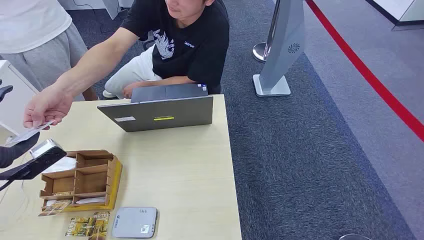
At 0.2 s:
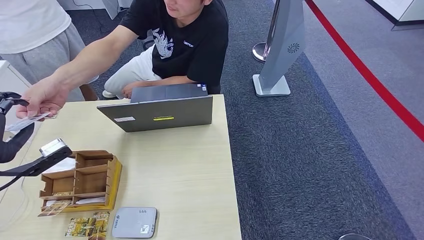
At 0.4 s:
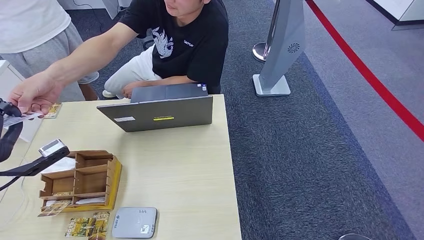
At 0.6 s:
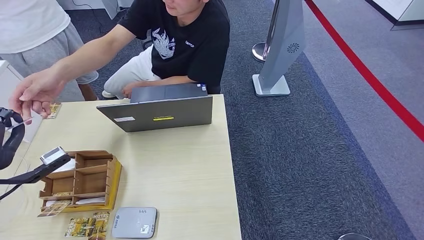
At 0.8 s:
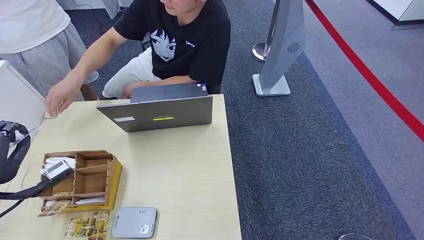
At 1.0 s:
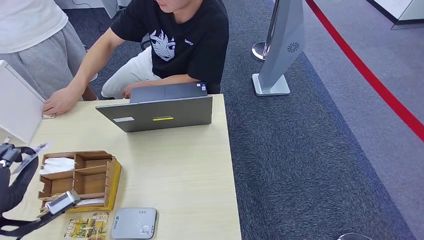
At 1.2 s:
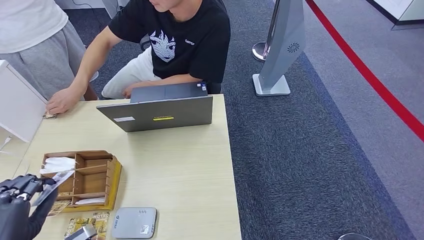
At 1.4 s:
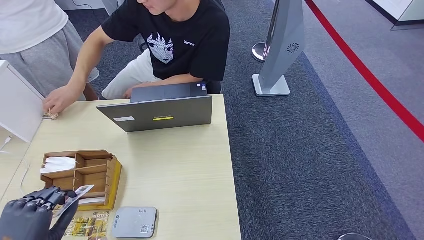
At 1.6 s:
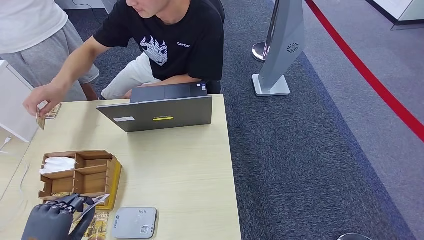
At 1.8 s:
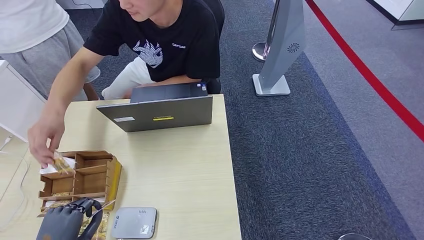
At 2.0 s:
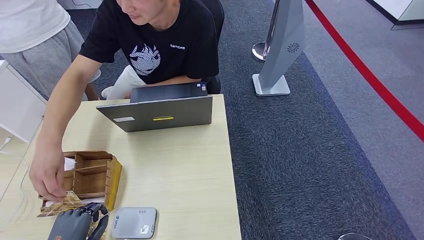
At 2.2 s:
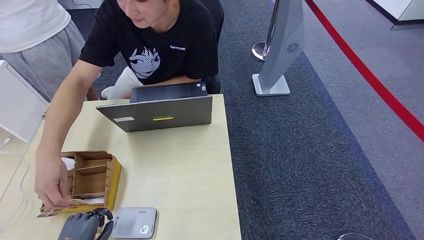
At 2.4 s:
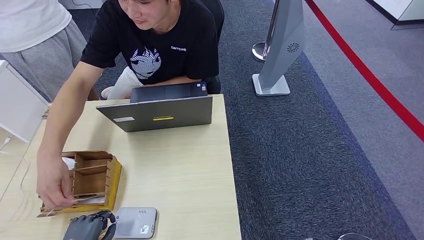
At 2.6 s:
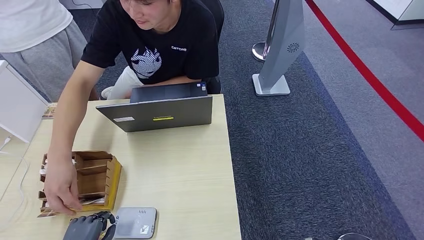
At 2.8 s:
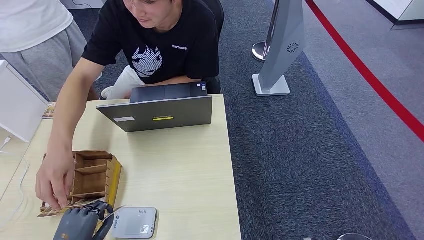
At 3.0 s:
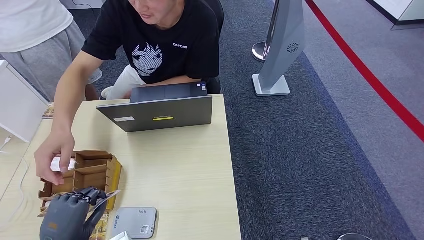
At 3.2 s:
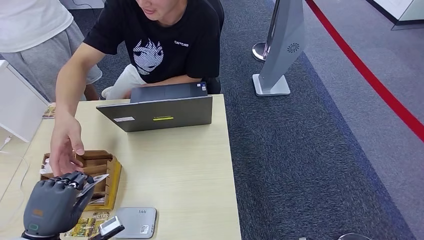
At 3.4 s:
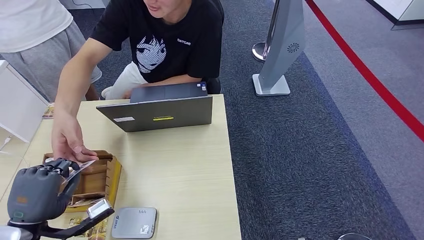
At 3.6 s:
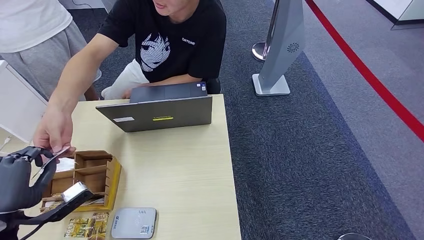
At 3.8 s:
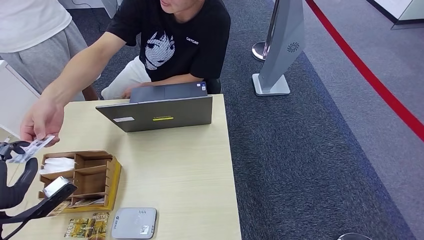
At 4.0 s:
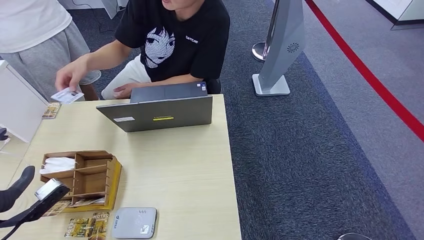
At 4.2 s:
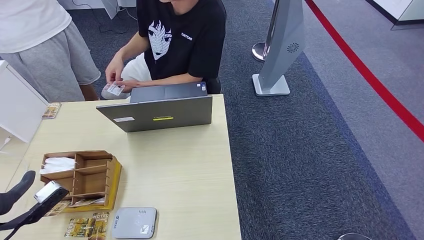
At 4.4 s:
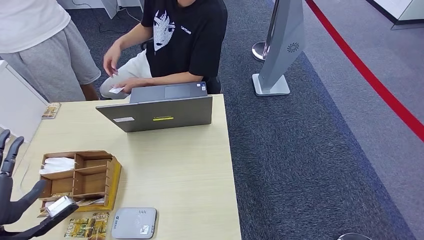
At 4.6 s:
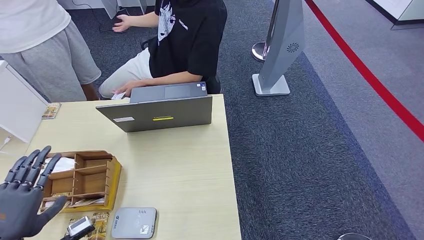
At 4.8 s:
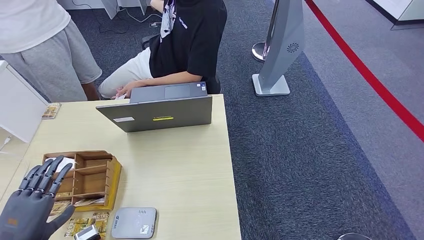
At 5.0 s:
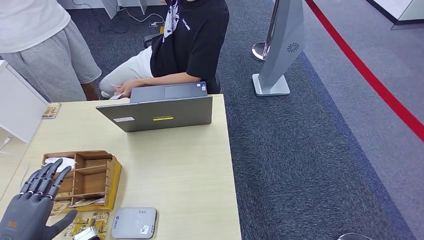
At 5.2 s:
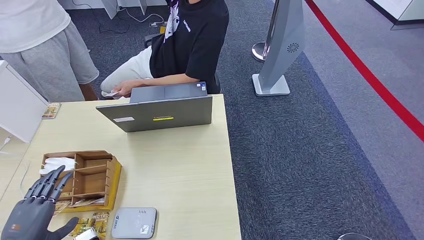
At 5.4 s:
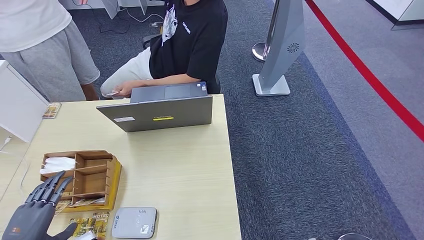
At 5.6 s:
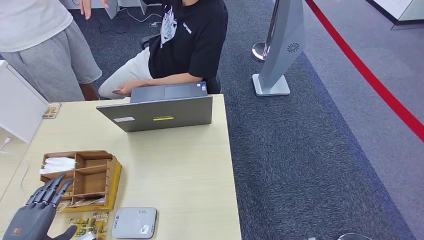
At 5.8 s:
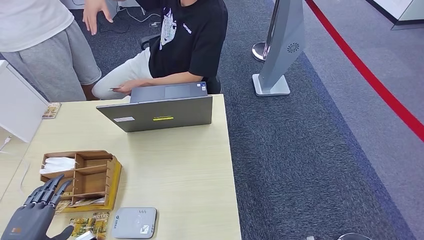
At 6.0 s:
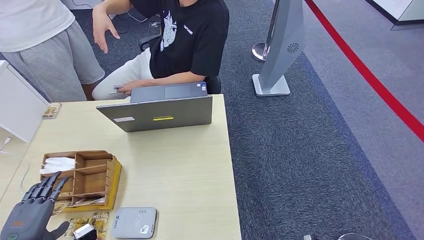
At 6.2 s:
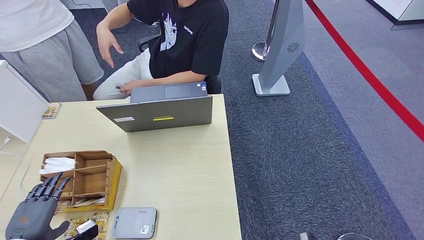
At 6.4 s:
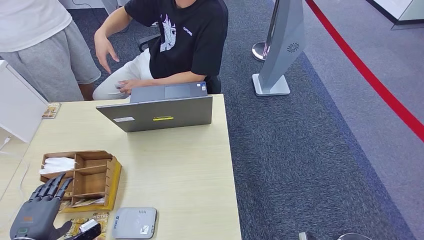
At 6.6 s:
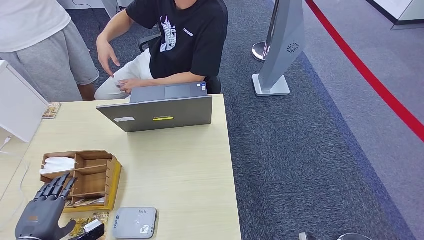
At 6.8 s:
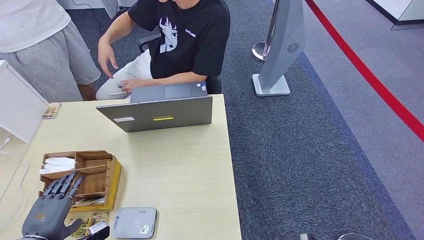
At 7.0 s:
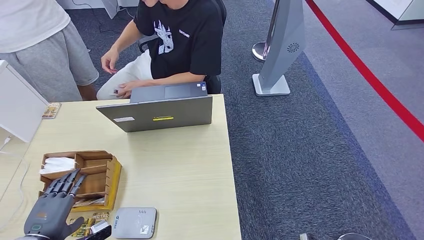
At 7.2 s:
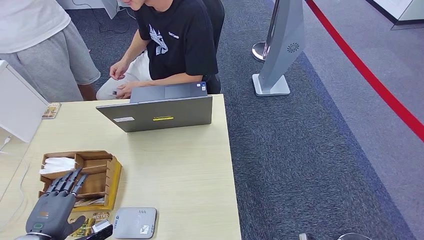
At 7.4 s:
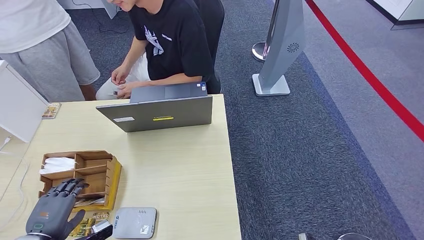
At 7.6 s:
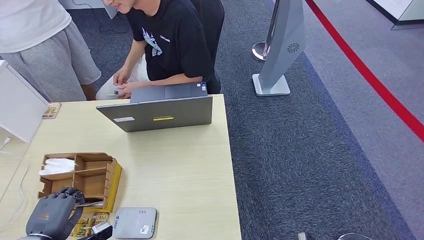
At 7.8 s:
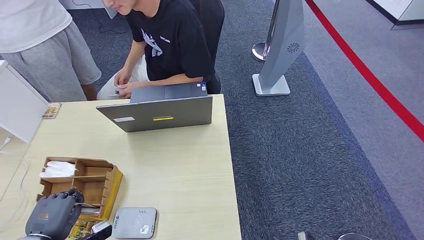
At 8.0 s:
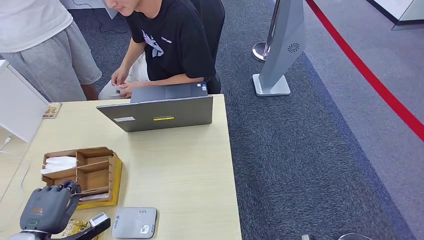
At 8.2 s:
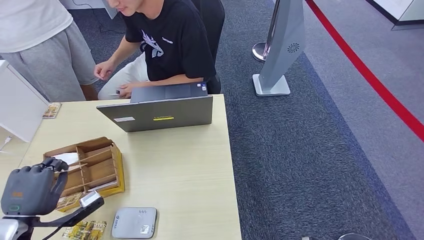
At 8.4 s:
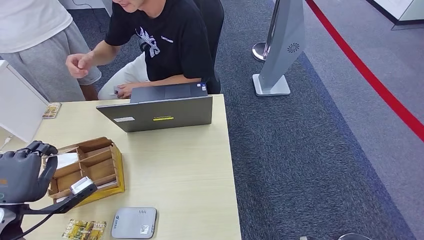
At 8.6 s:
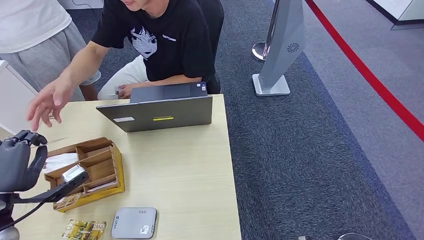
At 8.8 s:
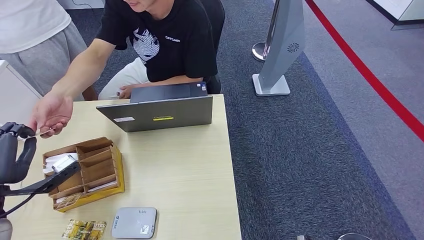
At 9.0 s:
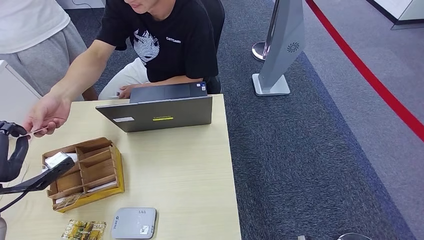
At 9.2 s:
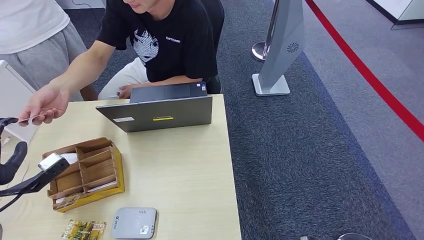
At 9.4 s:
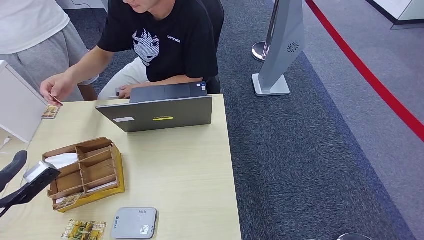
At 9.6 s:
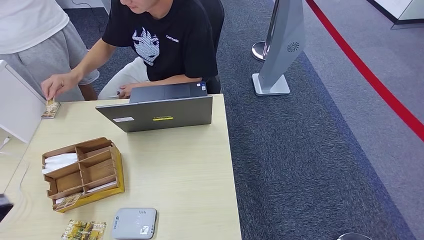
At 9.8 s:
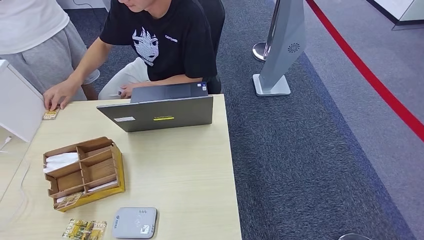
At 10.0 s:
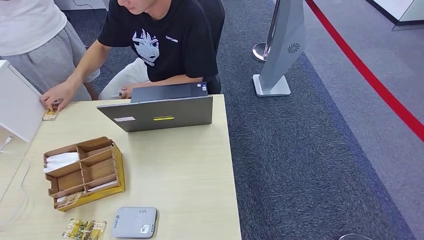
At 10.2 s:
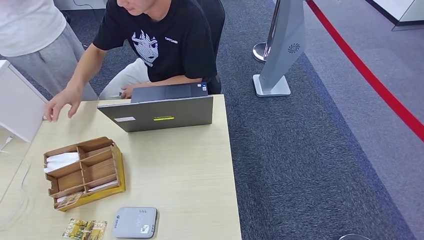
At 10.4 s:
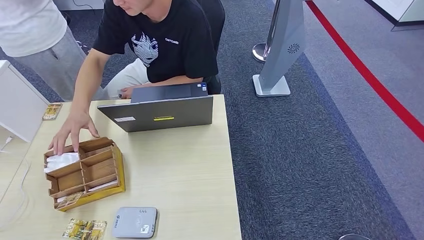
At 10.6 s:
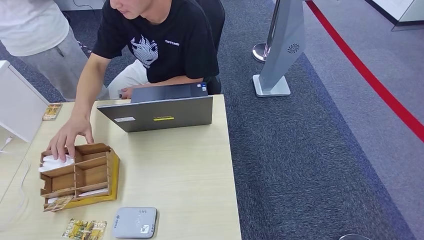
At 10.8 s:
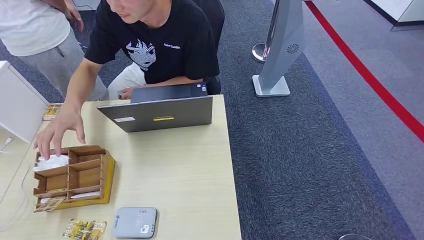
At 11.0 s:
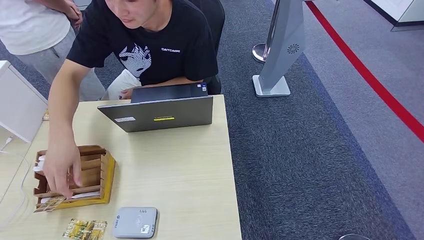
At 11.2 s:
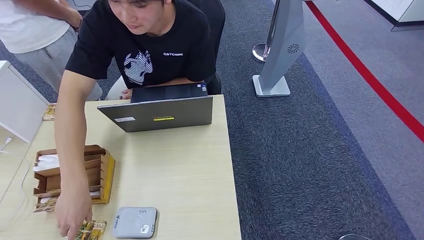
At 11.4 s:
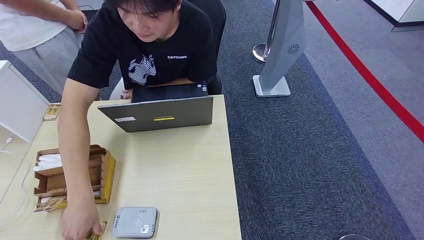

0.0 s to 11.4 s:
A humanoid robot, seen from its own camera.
Step, 0.0 to 1.0 s: Take the ID card from the person's hand.
Step, 1.2 to 2.6 s: Place the ID card on the card reader.
Step, 2.8 to 5.4 s: Hand the ID card to the person.
Step, 5.6 to 7.6 s: Pick up the room key from the key card box.
Step, 7.8 to 11.4 s: Hand the room key to the person.
1.4 to 2.8 s: The left hand goes about 10 cm downward.
2.8 to 4.2 s: The left hand shifts some 15 cm upward, to the left and forward.
4.2 to 5.6 s: The left hand goes approximately 10 cm downward and backward.
5.6 to 7.2 s: The left hand shifts by roughly 5 cm.
7.2 to 8.6 s: The left hand shifts about 15 cm upward and forward.
8.6 to 10.0 s: The right hand shifts by about 5 cm. Meanwhile the left hand travels backward and to the left by some 20 cm.
